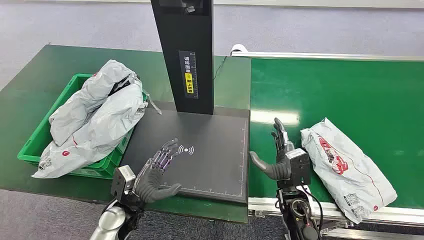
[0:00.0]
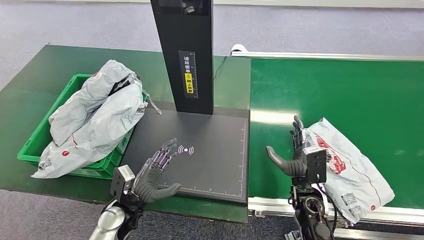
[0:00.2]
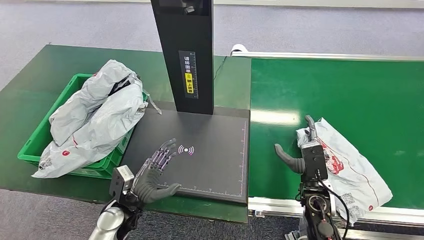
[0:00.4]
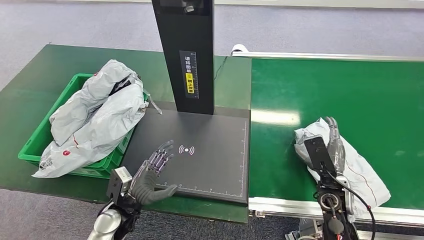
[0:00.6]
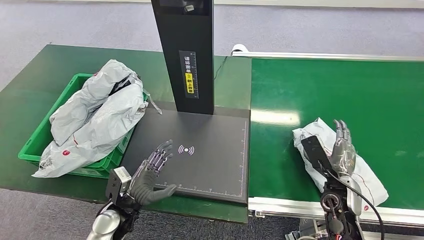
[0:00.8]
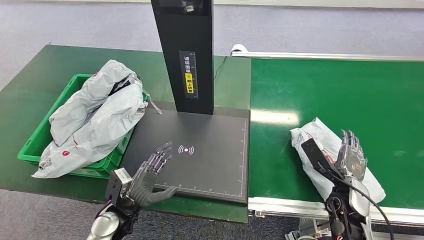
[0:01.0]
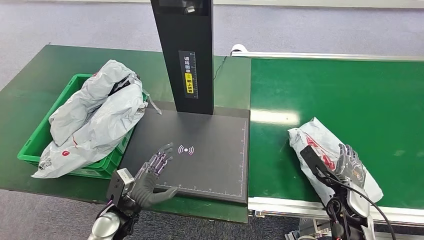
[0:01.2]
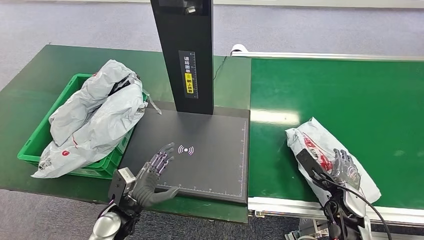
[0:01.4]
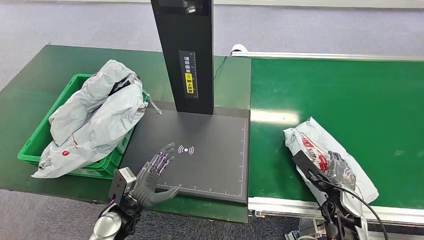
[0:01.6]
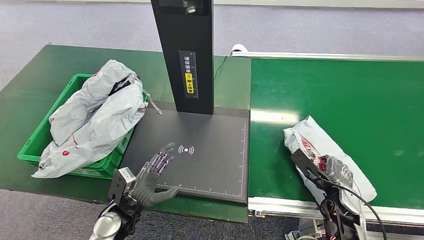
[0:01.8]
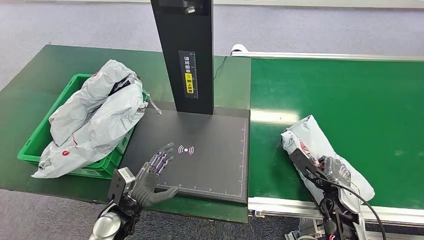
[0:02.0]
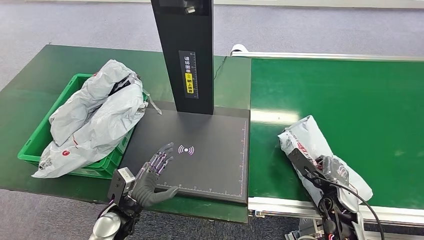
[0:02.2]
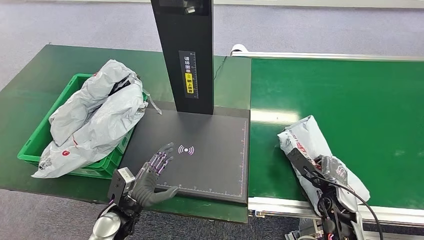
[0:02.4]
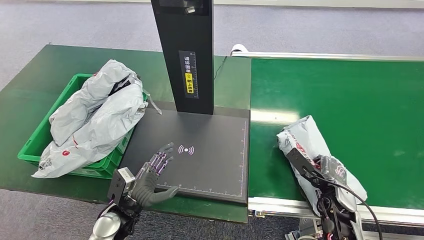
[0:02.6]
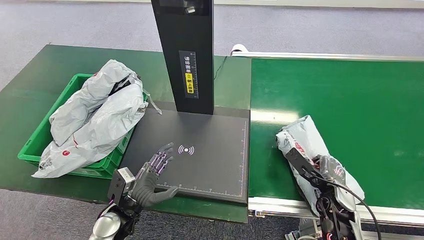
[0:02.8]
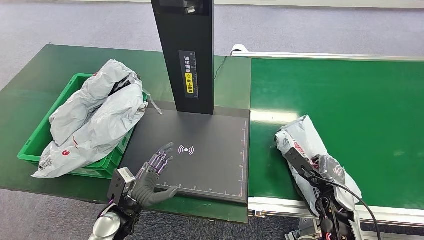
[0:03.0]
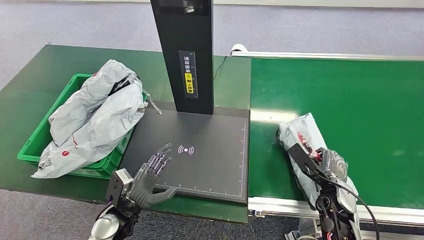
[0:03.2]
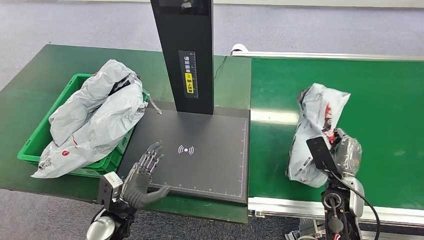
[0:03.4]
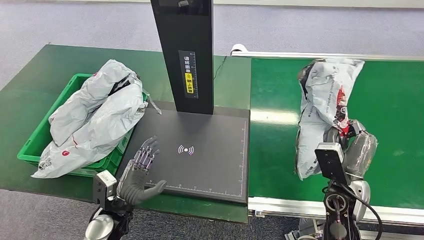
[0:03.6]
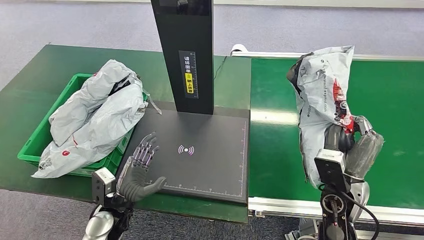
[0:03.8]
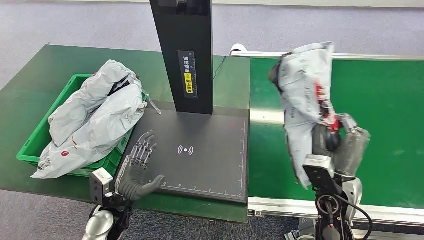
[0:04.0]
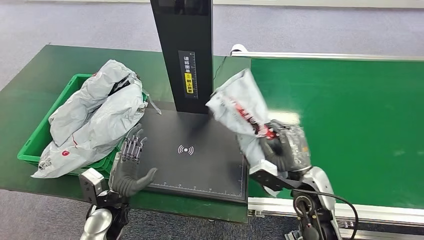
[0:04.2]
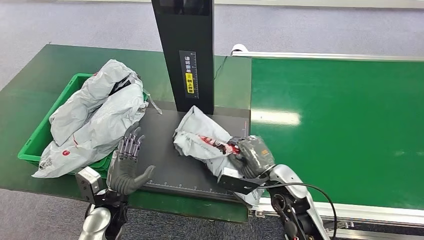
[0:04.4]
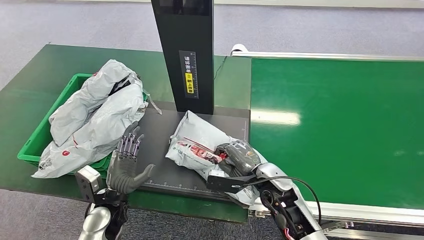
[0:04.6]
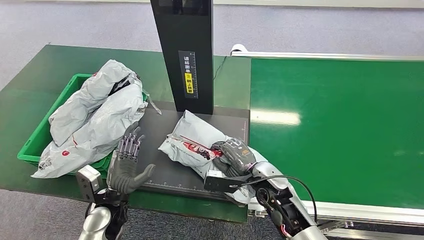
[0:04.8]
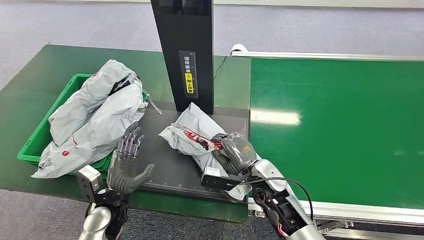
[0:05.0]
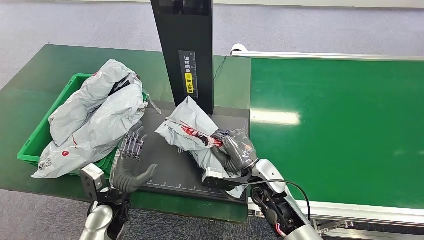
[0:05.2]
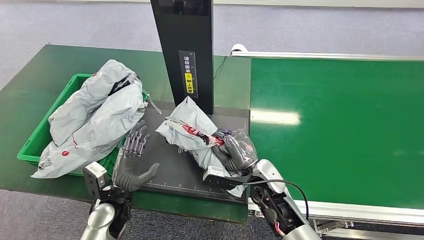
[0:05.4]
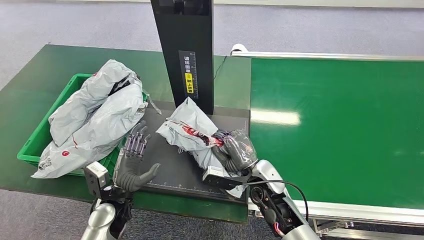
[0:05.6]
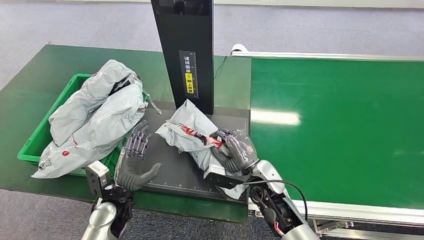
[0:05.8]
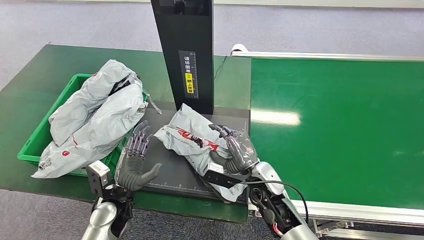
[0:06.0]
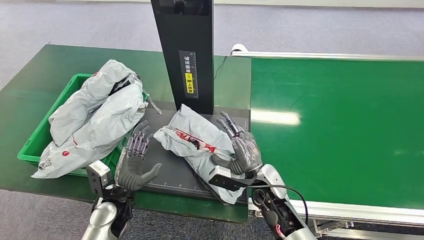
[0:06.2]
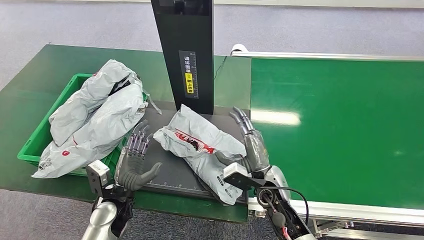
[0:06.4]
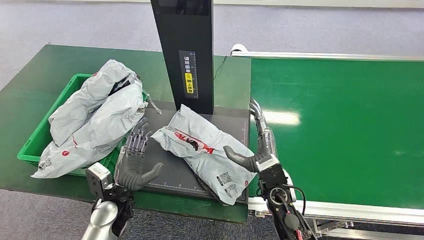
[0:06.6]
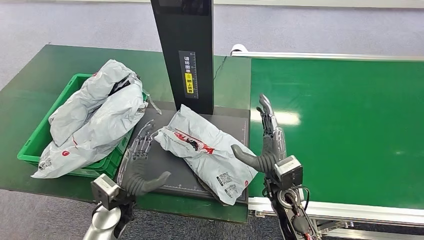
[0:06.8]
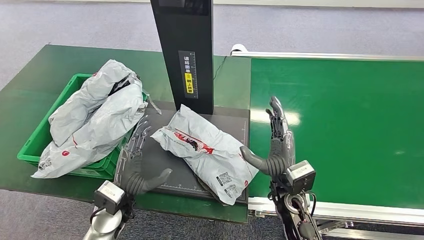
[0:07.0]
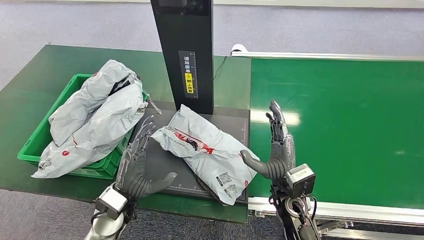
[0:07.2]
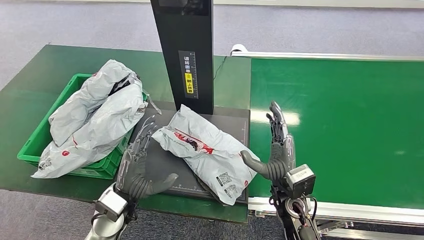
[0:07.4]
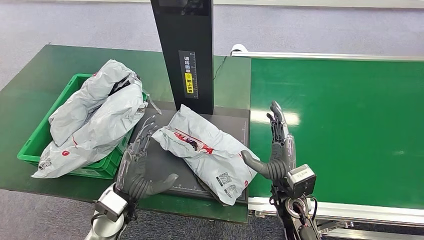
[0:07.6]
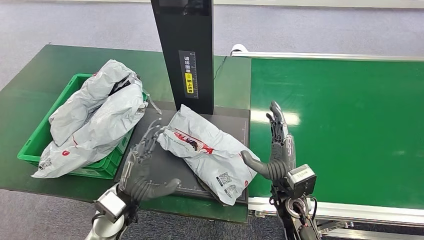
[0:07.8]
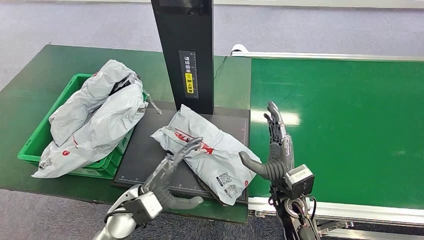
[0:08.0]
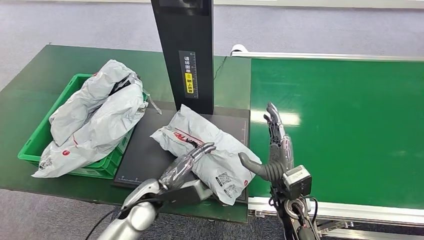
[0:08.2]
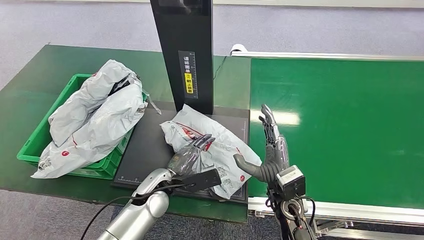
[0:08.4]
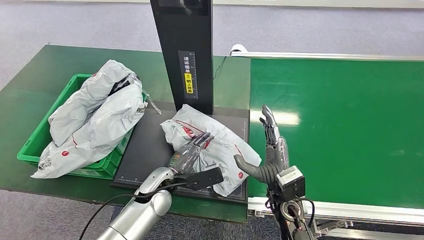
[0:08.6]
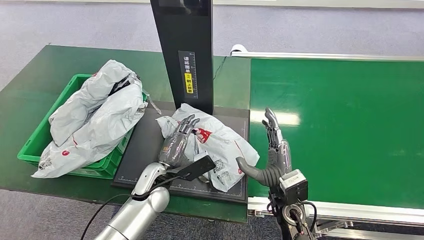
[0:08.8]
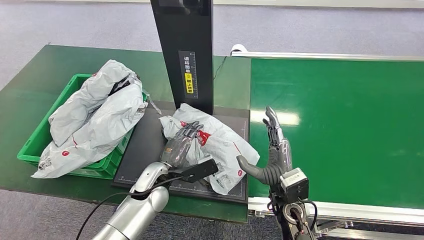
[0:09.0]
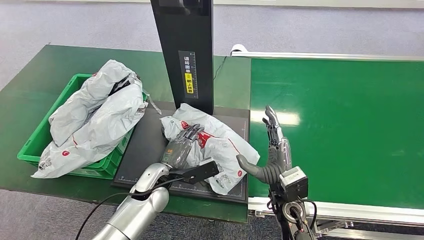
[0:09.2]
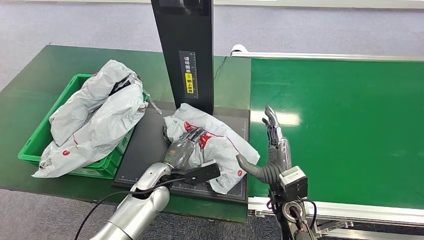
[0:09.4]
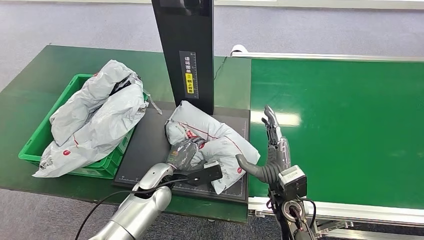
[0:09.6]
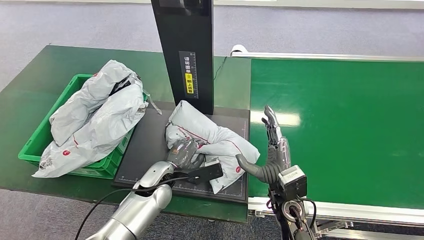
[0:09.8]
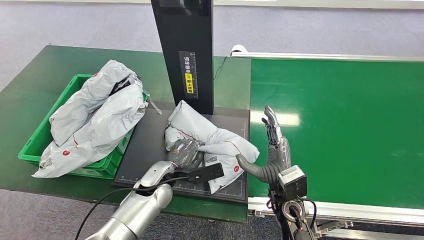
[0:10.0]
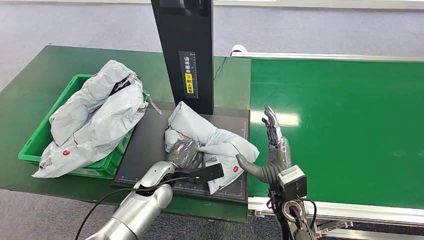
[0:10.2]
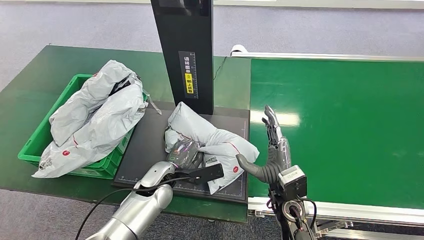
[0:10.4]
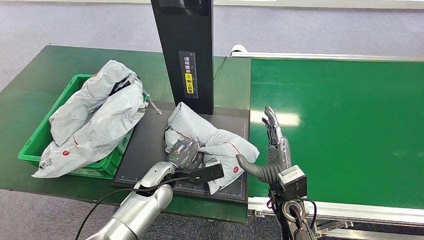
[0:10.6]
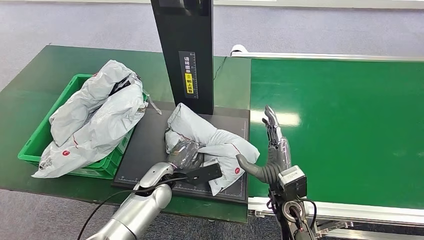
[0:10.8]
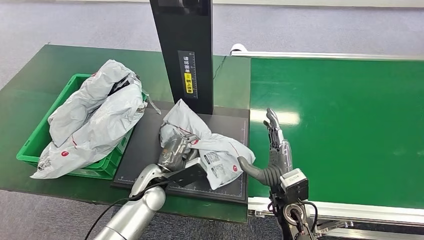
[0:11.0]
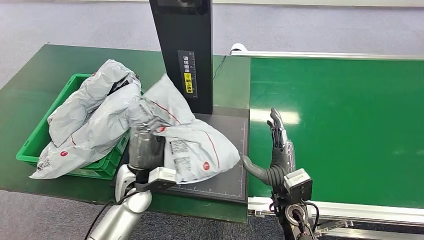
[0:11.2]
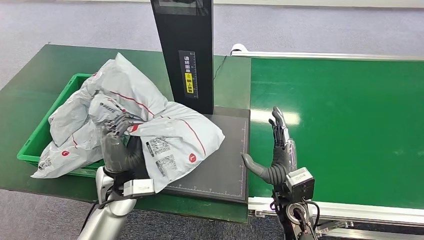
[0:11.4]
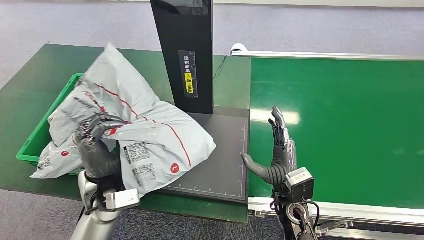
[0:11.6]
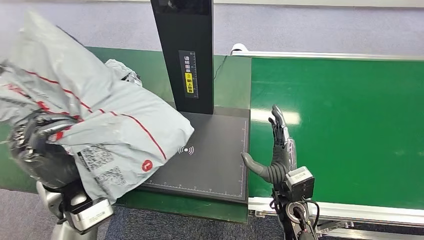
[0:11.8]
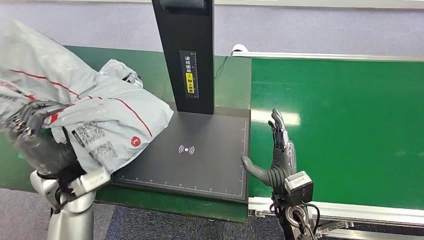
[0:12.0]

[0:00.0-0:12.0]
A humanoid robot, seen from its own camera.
Step, 0:00.0 to 0:03.8: Pick up the package from the conveyor belt.
Step, 0:04.0 to 0:06.8: Place the package onto the inbound machine.
Step, 0:07.0 to 0:11.6: Pick up the package from the inbound machine.
0:01.6 to 0:03.0: The hands make only small movements.
0:03.0 to 0:04.4: The right hand goes some 15 cm to the left.
0:04.4 to 0:06.0: The hands move only a little.
0:06.0 to 0:07.6: The left hand ends up some 5 cm from where it was; the right hand ends up approximately 5 cm from where it was.
0:07.6 to 0:09.0: The left hand travels forward and to the right by some 10 cm.
0:09.0 to 0:10.4: The hands make only small movements.

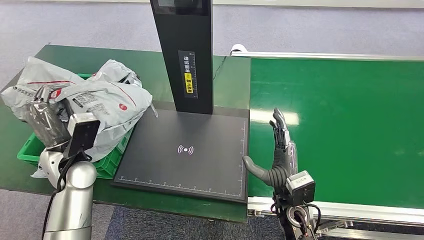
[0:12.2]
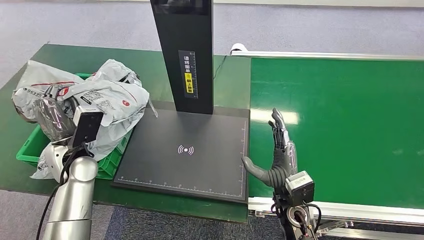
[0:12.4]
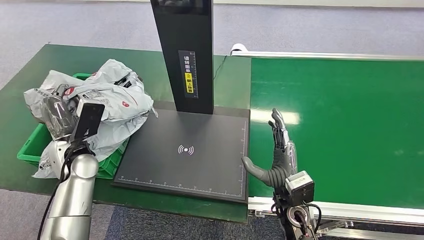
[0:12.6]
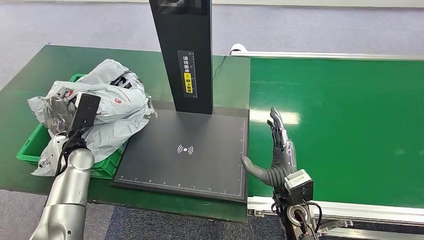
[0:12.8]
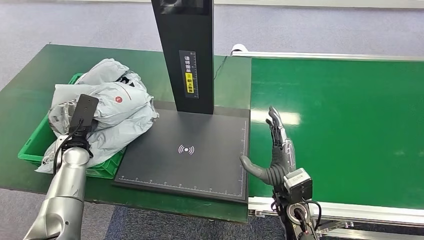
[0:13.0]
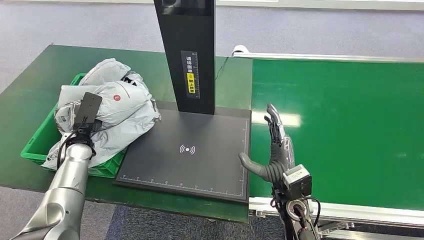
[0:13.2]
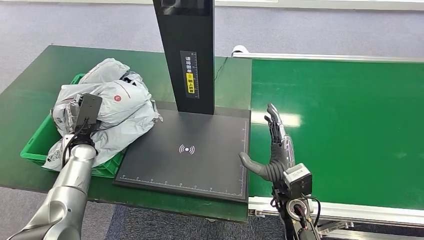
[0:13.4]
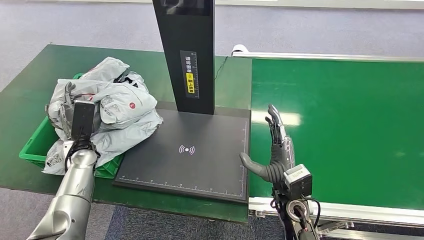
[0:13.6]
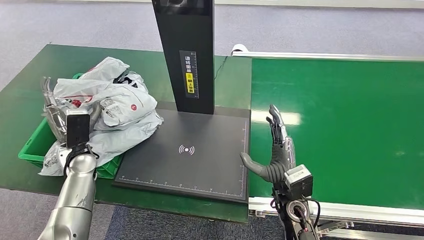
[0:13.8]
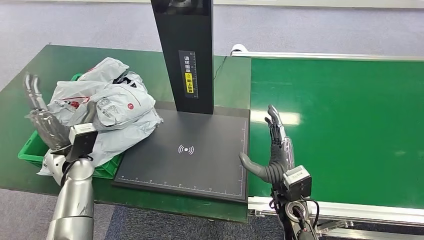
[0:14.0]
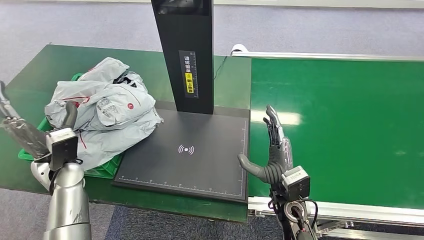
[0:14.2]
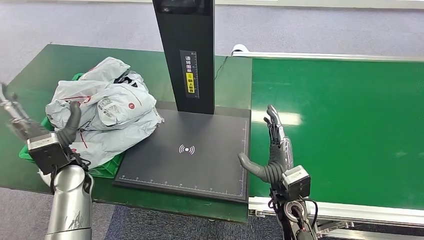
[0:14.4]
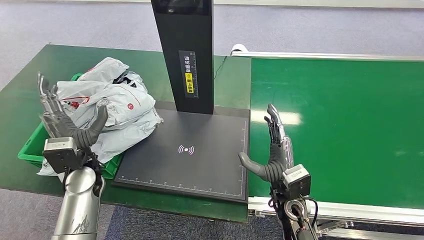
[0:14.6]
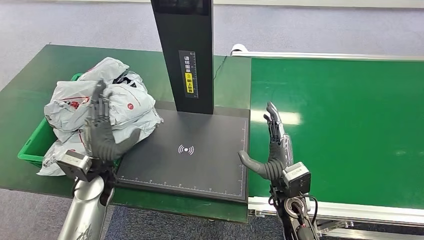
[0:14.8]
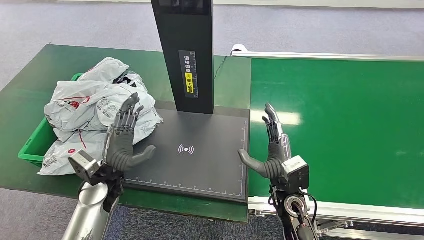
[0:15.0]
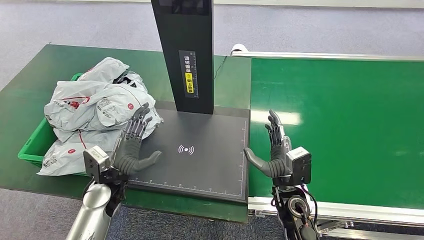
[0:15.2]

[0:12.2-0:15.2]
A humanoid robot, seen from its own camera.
Step, 0:12.2 to 0:15.2: Place the package into the parcel locker.
0:12.2 to 0:13.8: The left hand moves downward, roughly 5 cm.
0:13.8 to 0:15.2: The left hand heads to the right and backward, covering about 10 cm.
